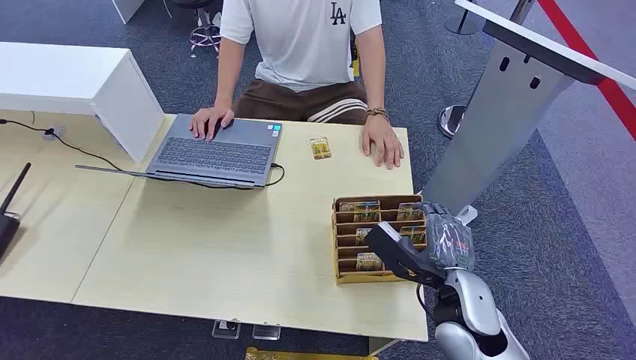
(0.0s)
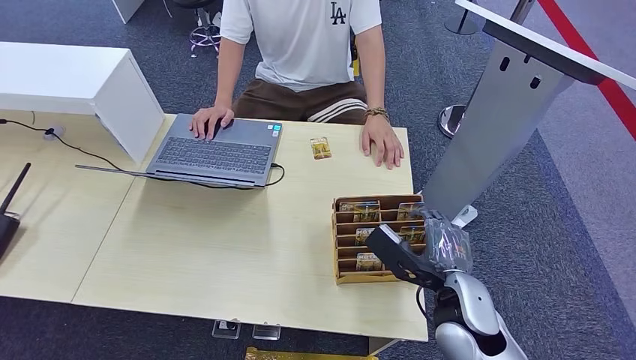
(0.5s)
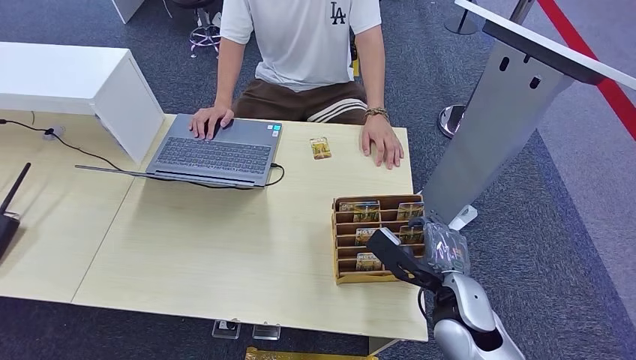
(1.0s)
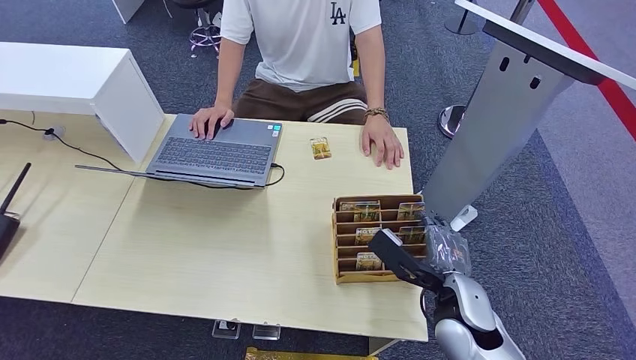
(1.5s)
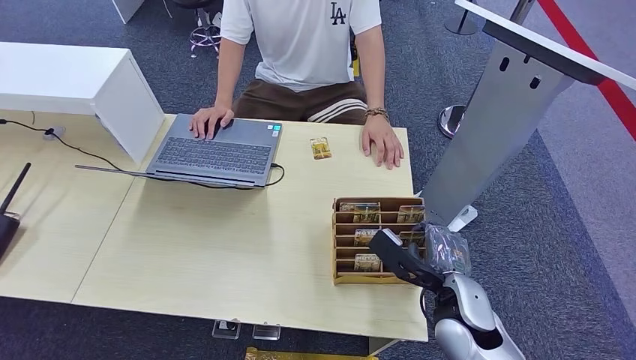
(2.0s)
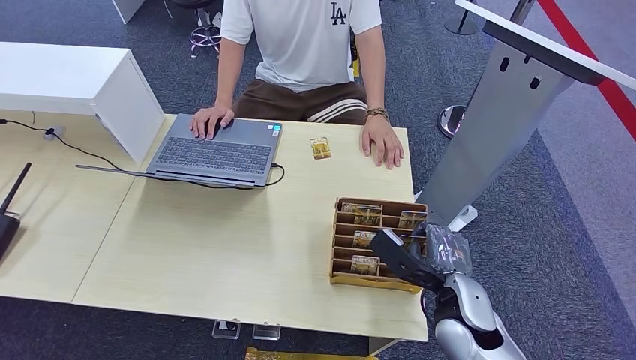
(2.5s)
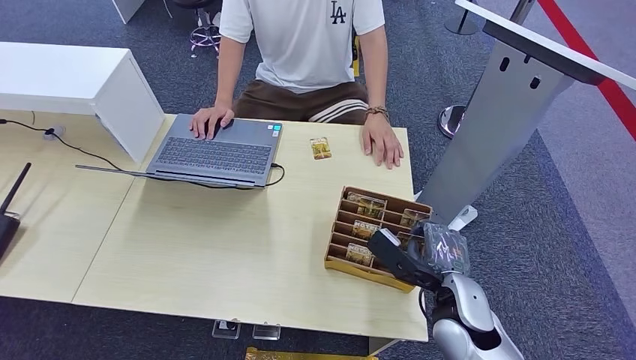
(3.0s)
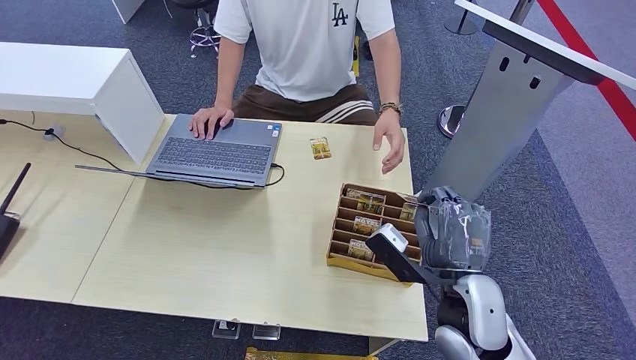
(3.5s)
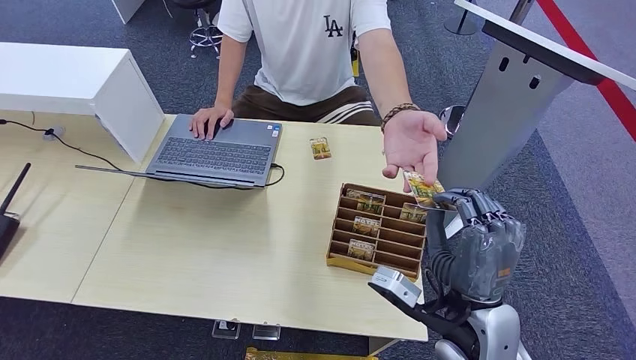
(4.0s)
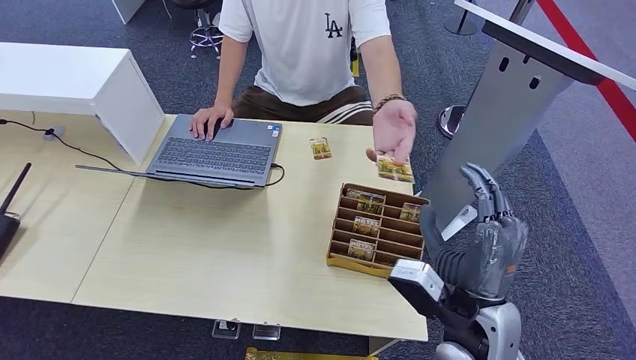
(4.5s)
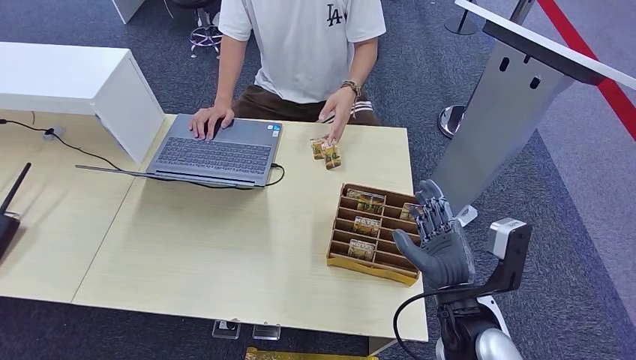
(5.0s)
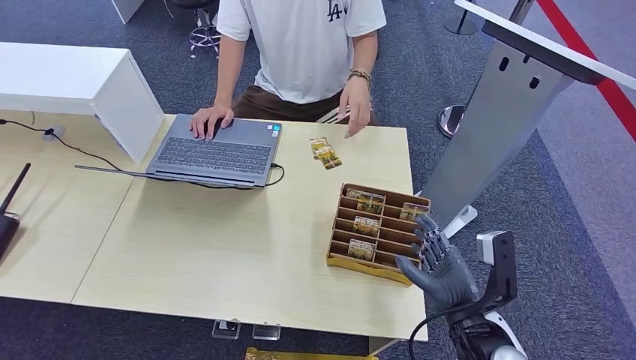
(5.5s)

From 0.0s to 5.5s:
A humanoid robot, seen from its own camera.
Step, from 0.0s to 3.5s: Pick up the room card from the card holder.
Step, from 4.0s to 5.5s: Hand the room card to the target.
From 2.0s to 3.5s: The right hand goes about 5 cm upward.
From 3.5s to 5.5s: The right hand changes place by roughly 5 cm.
